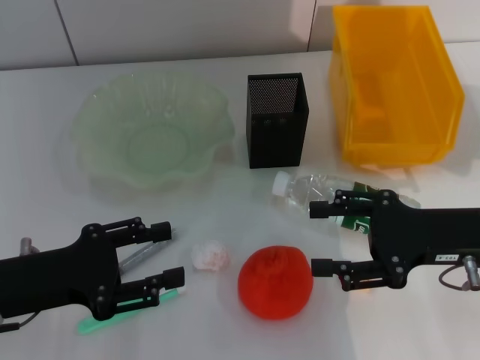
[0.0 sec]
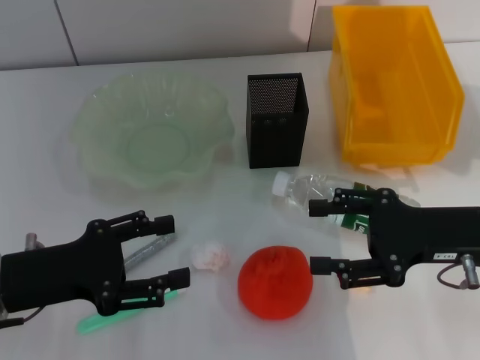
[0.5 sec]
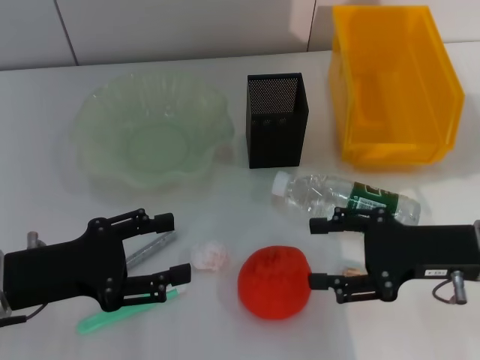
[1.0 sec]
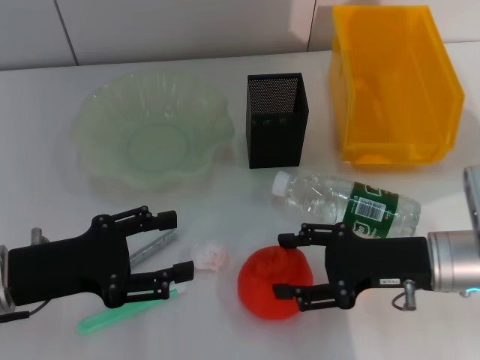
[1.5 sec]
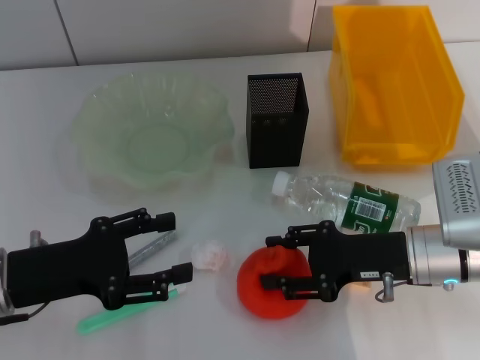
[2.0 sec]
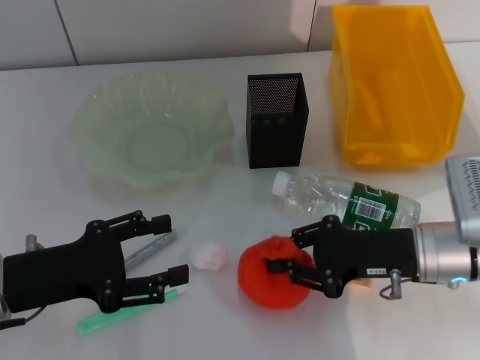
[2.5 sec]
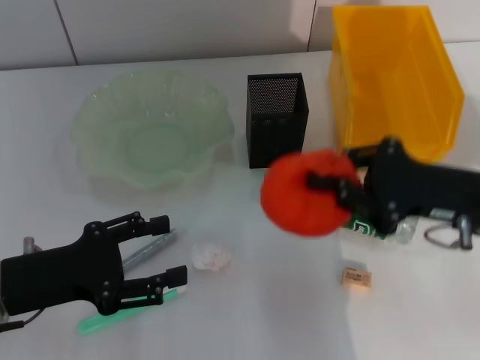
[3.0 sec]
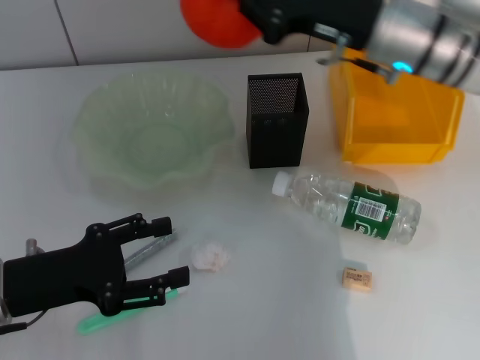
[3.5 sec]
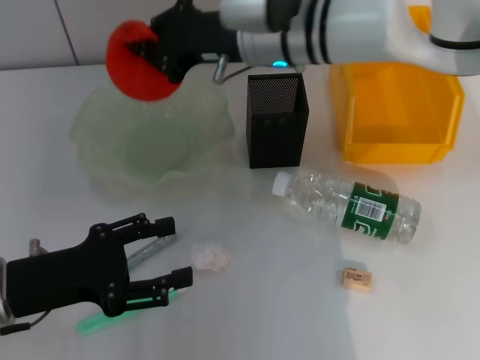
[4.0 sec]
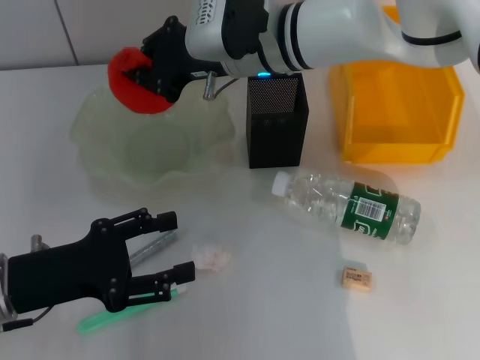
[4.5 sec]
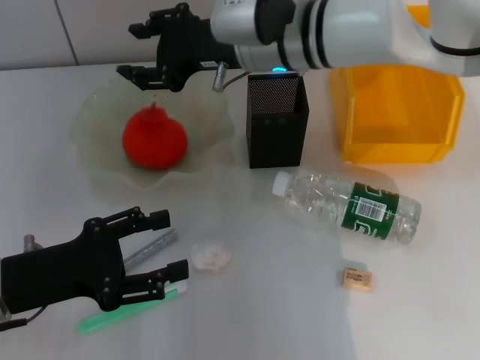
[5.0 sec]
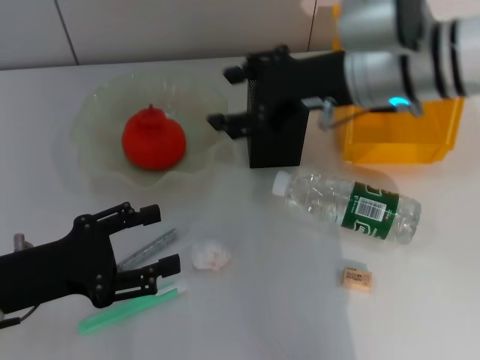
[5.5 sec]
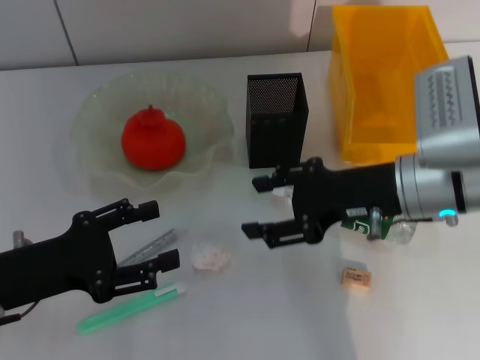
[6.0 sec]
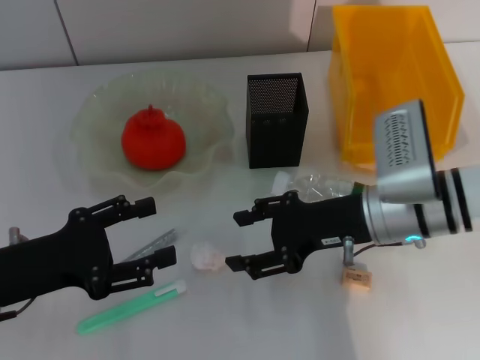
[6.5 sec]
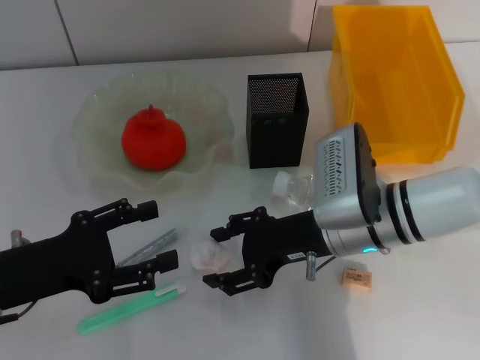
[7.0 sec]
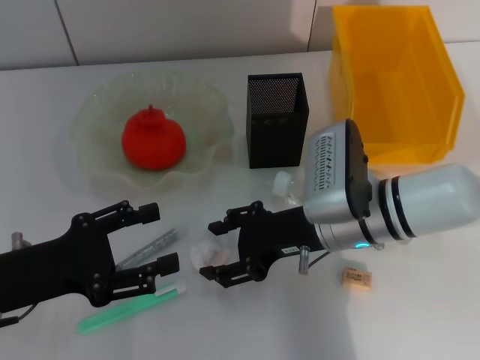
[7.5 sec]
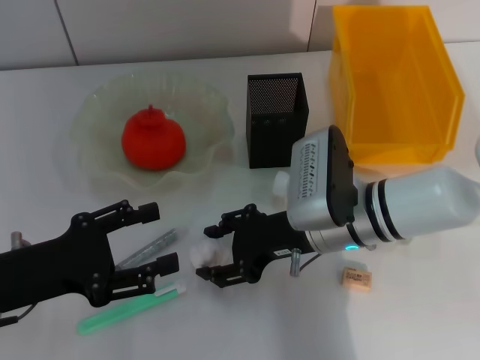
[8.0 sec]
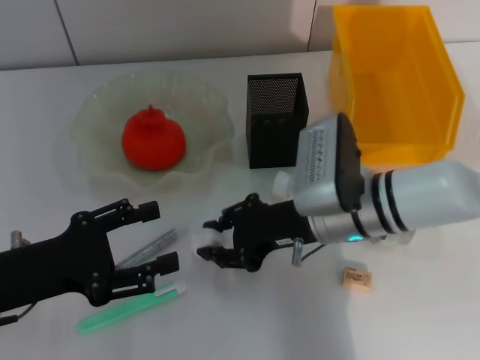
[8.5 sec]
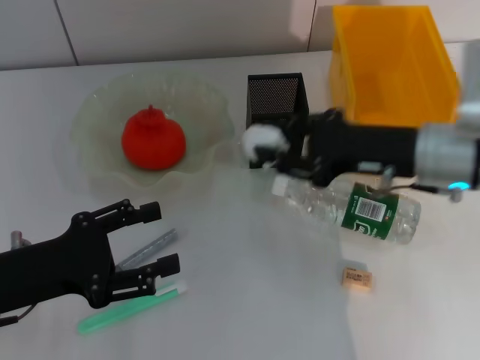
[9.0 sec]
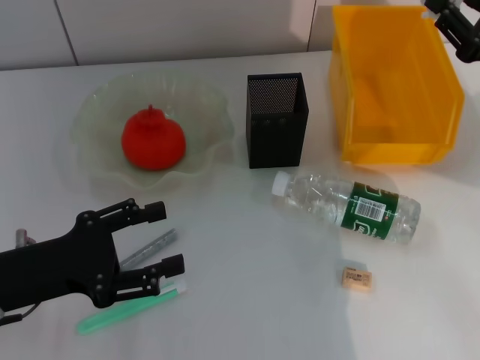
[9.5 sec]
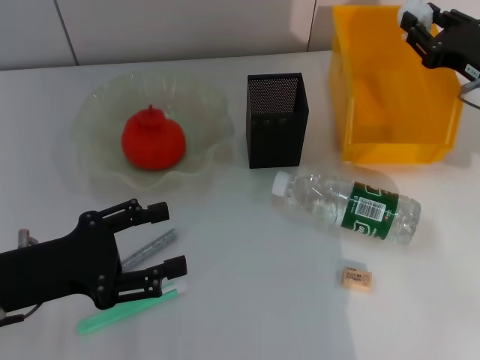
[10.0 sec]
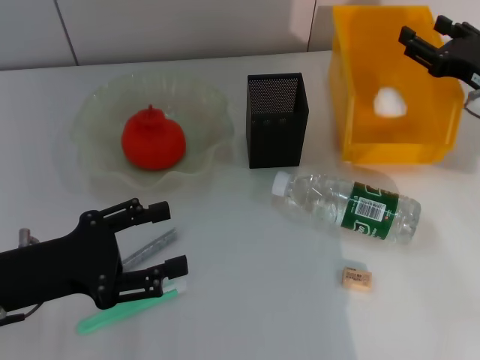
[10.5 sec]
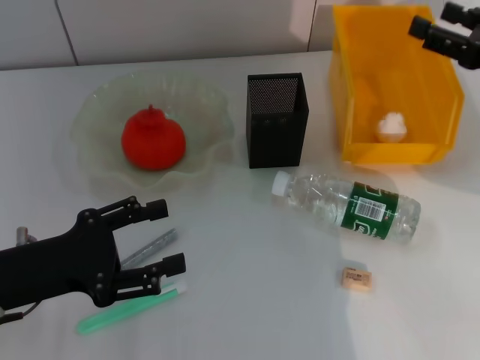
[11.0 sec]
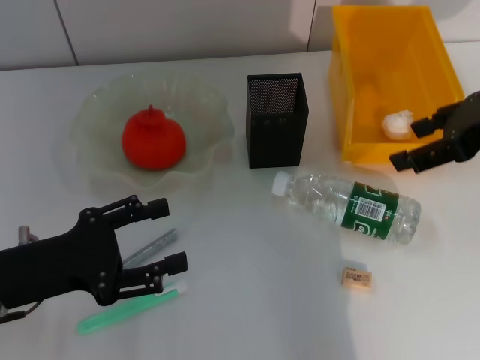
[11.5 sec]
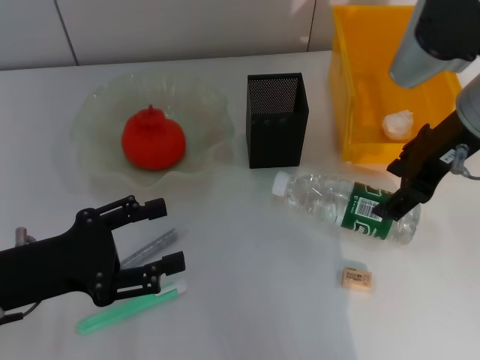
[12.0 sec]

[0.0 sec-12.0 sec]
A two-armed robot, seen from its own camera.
Step, 0.0 sec to 2.0 sec: Grab the orange with the right hand.
Step, 2.5 sec to 4.5 sec: Place the orange into the fruit bowl with the right hand.
Step, 5.0 sec to 8.0 sec: Grab the paper ball with the right hand.
Step, 8.5 sec to 10.5 sec: Place the paper ball into the trash can with the right hand.
0.0 sec to 2.0 sec: The right gripper heads downward, covering about 5 cm.
2.0 sec to 4.0 sec: The right gripper heads forward, to the left and upward, covering roughly 25 cm, and closes up.
4.0 sec to 6.0 sec: The right gripper travels backward and to the right by roughly 20 cm, and opens up.
6.0 sec to 8.0 sec: The right gripper shifts roughly 10 cm to the left and downward.
8.0 sec to 10.0 sec: The right gripper shifts approximately 20 cm to the right, and closes up.
10.0 sec to 12.0 sec: The right gripper goes some 15 cm upward and to the left, and opens.

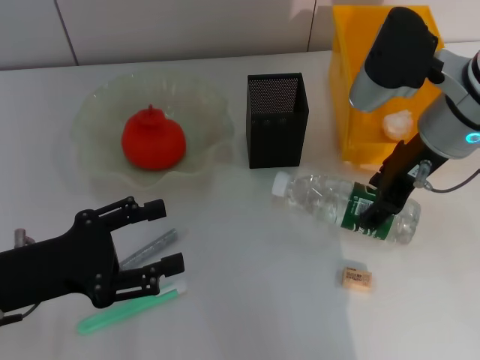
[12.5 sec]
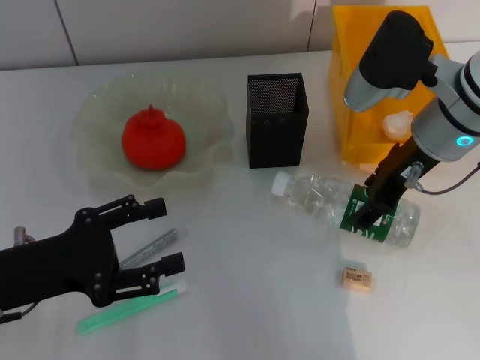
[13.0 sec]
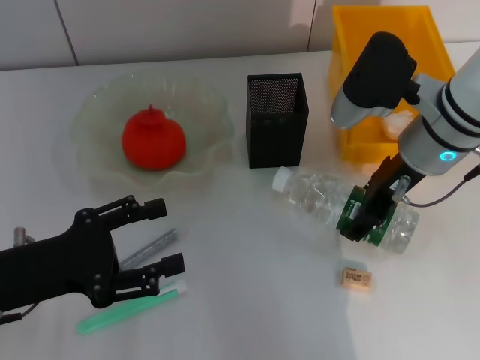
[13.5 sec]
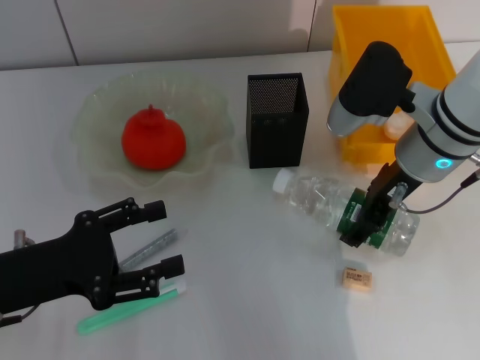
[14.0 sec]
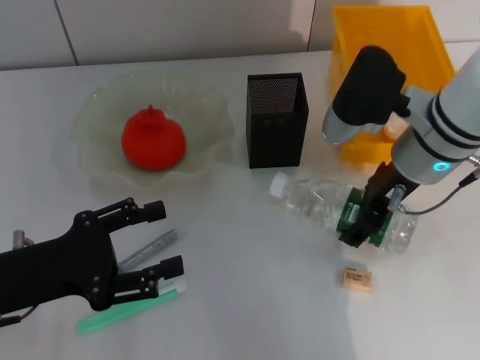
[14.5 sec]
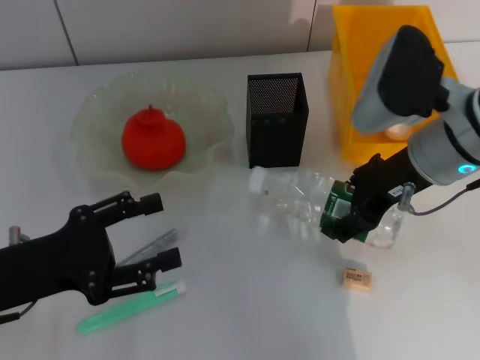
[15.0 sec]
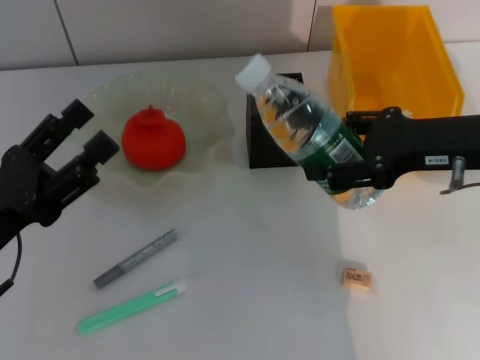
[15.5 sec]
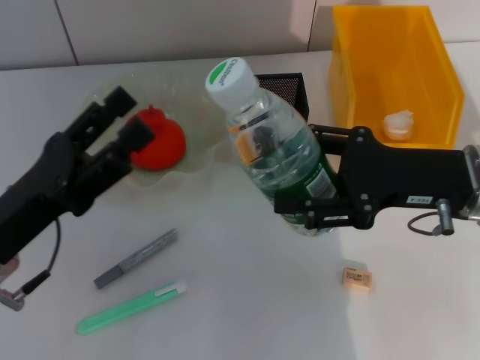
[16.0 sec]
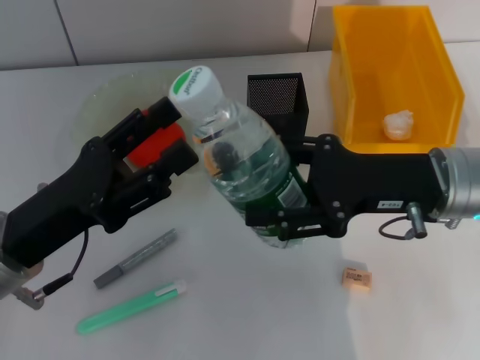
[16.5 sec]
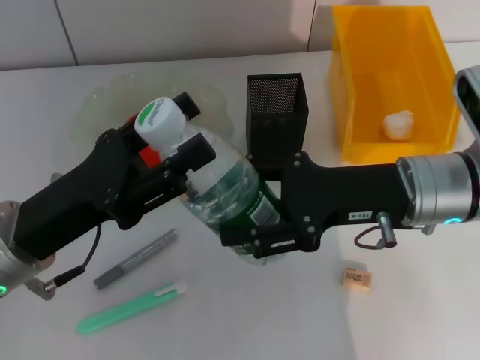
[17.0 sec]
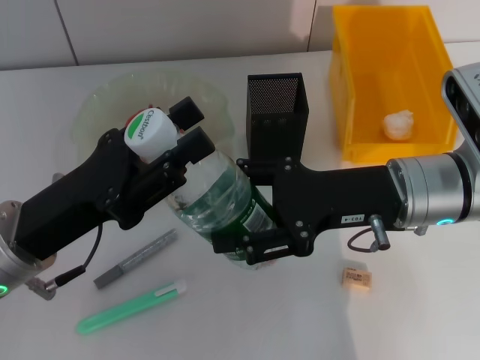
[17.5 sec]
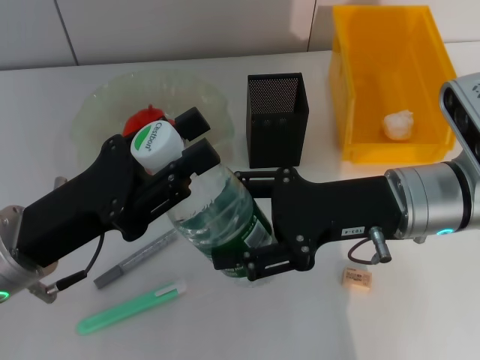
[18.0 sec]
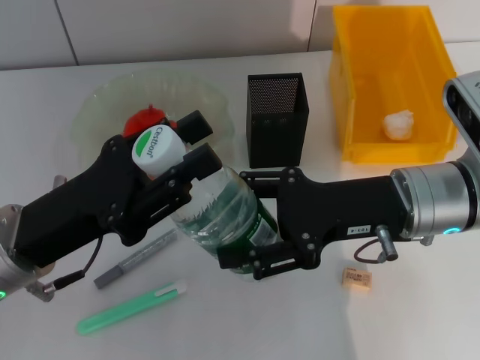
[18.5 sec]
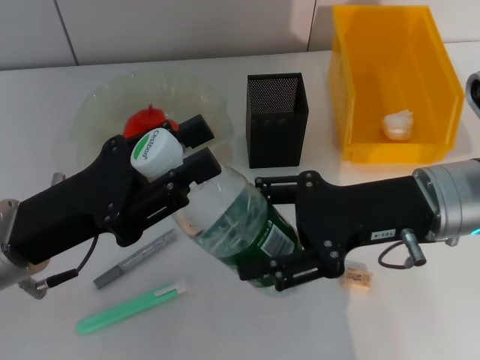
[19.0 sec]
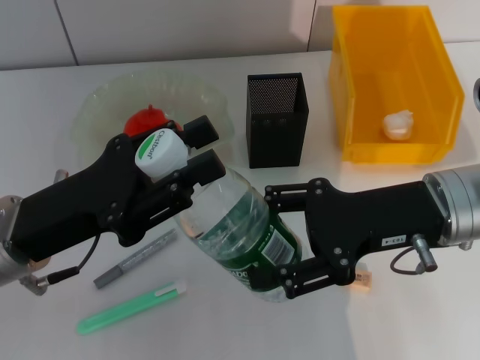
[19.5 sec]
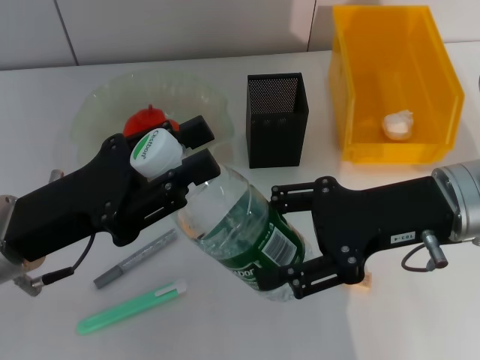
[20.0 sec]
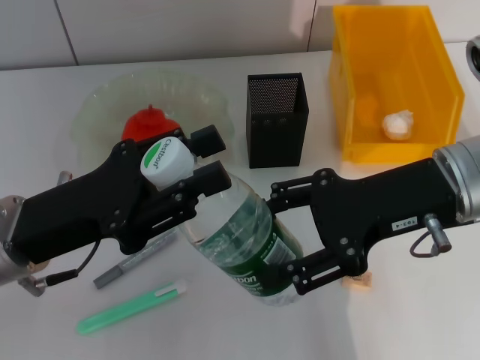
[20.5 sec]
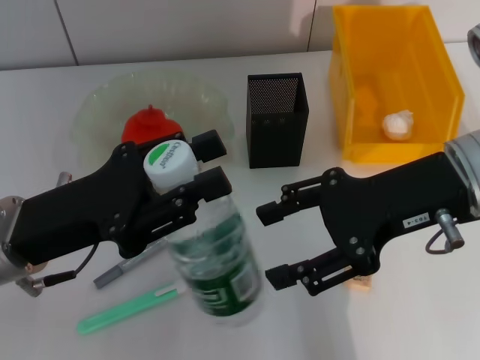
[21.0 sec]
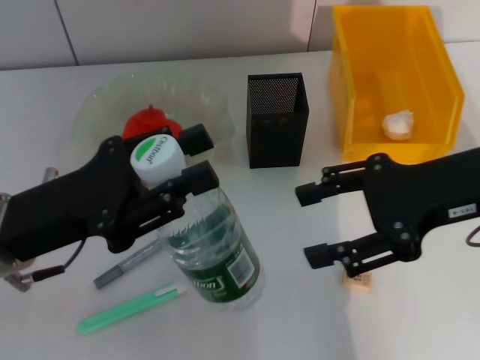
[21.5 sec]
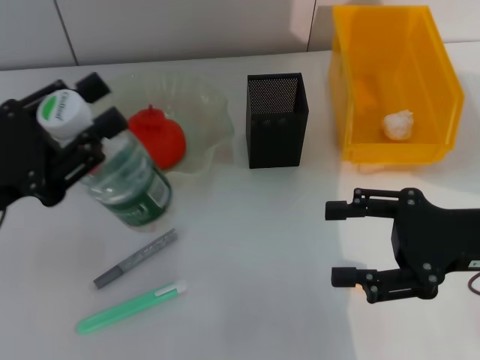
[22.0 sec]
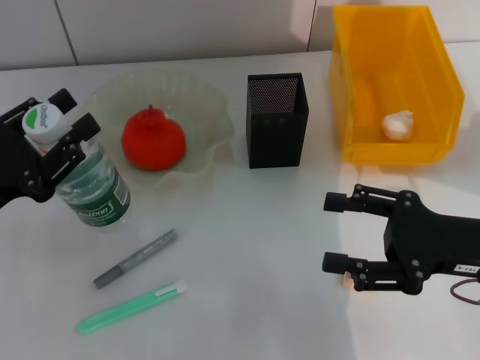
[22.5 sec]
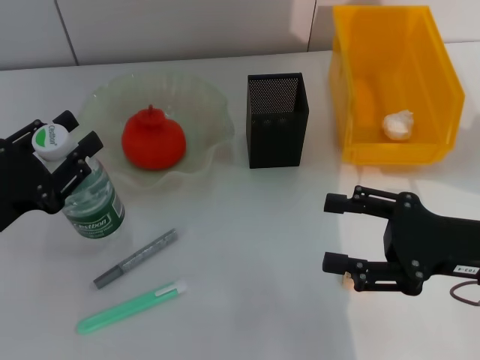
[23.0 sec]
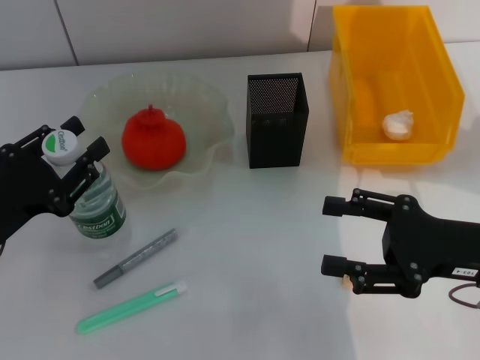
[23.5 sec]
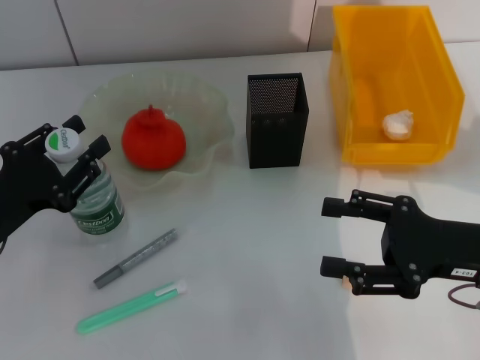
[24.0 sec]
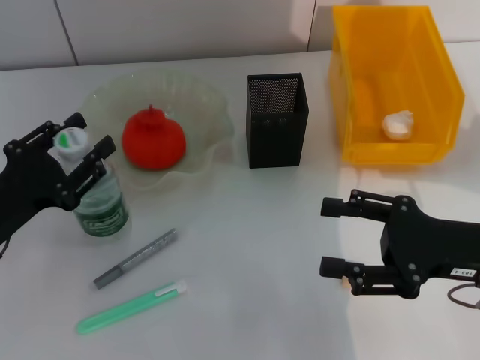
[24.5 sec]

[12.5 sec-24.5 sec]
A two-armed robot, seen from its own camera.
Step, 12.5 sec to 14.5 sec: Grab the water bottle with the right hand.
Step, 15.0 sec to 21.0 sec: Pass the water bottle from the right hand to the left hand.
12.5 sec to 14.5 sec: The grippers stay close to where they were, moving slightly.
14.5 sec to 16.5 sec: The right gripper moves backward, roughly 5 cm.
16.5 sec to 18.5 sec: The left gripper closes its fingers.
18.5 sec to 20.5 sec: The right gripper goes approximately 5 cm upward.
20.5 sec to 22.5 sec: The left gripper moves to the left, some 10 cm. The right gripper shifts approximately 10 cm downward, to the right and backward.
22.5 sec to 24.5 sec: There are only small adjustments of the grippers.

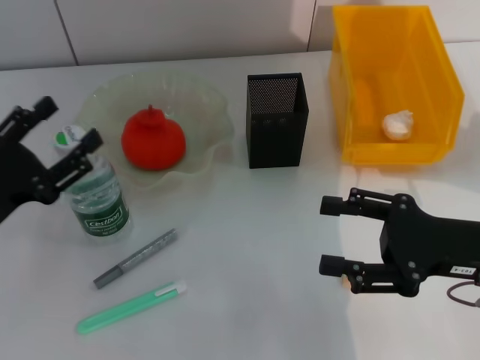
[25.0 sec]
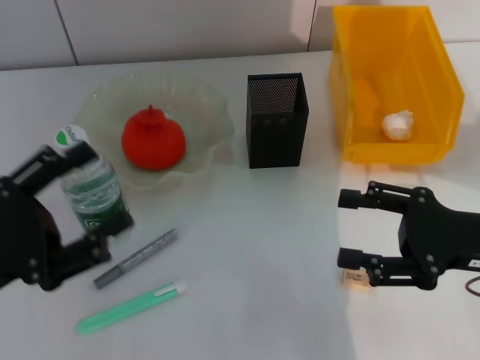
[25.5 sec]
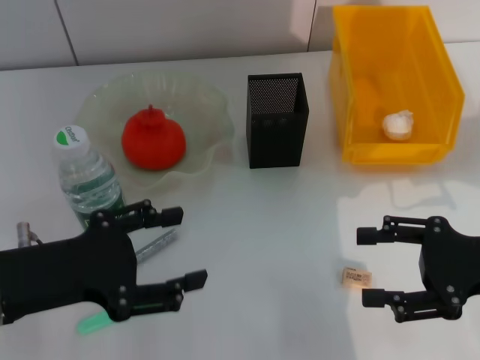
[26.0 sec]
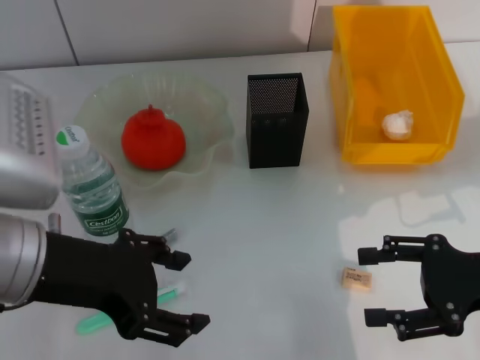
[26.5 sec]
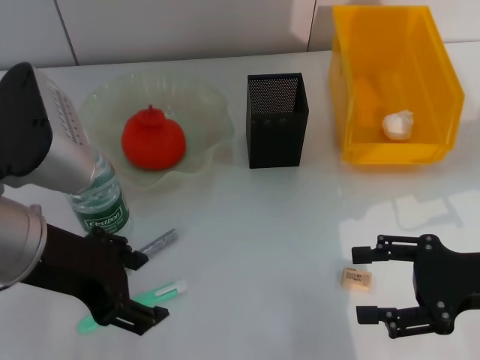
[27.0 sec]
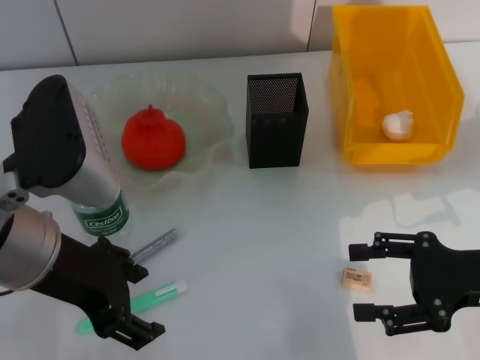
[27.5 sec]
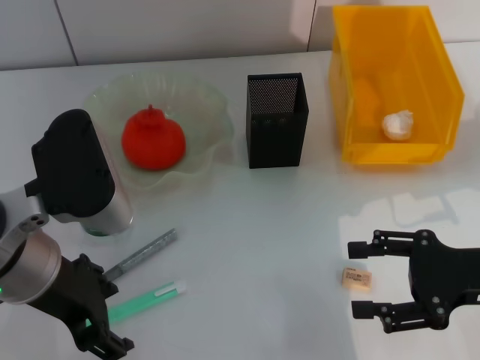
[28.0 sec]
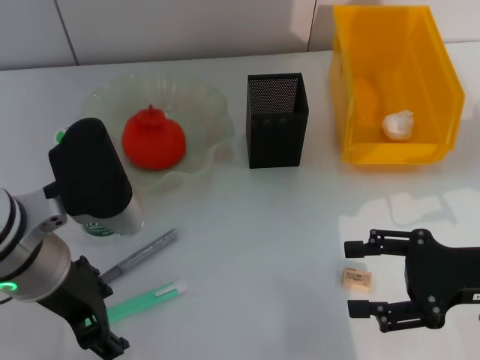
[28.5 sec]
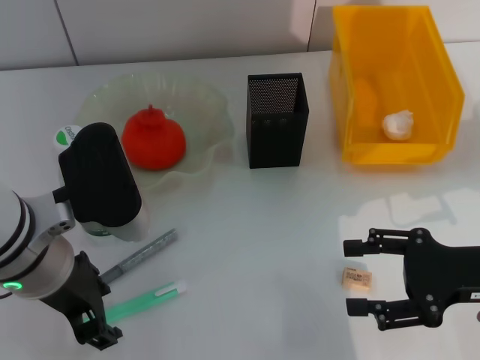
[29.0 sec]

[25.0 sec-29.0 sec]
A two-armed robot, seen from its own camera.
25.0 sec to 27.0 sec: The left gripper travels upward and to the right by roughly 15 cm.
